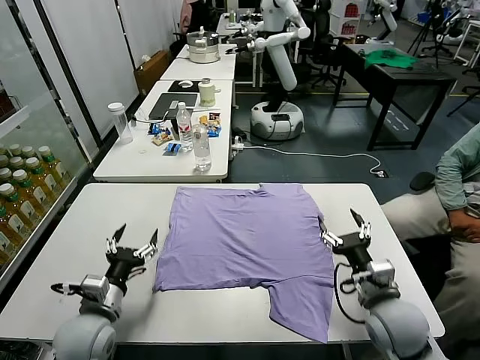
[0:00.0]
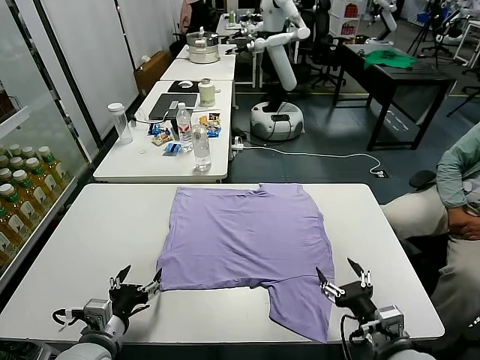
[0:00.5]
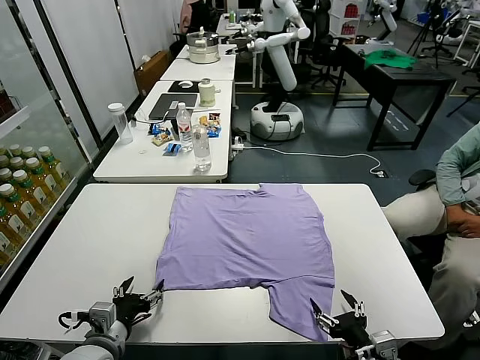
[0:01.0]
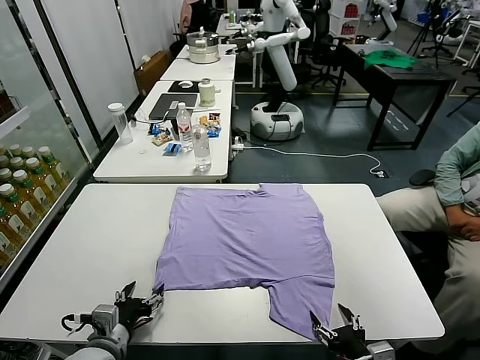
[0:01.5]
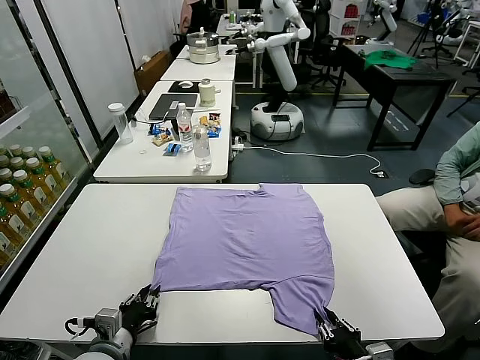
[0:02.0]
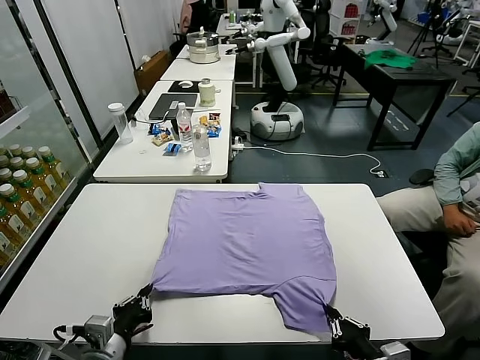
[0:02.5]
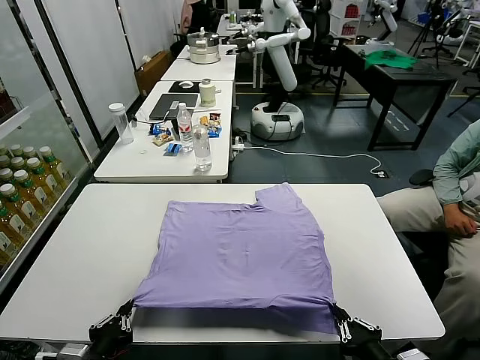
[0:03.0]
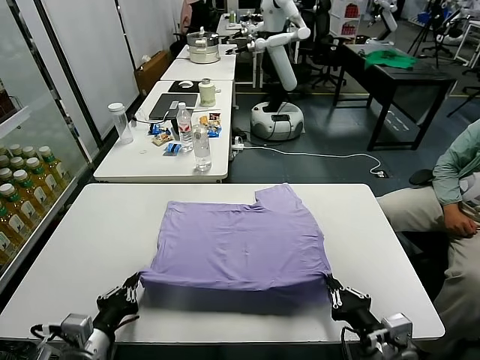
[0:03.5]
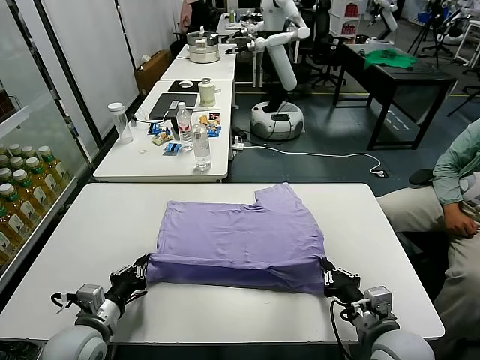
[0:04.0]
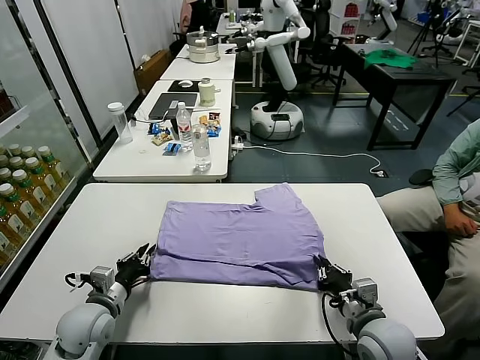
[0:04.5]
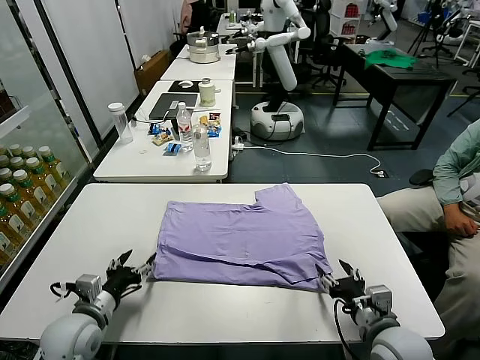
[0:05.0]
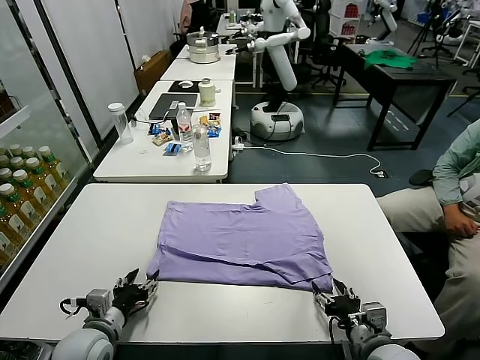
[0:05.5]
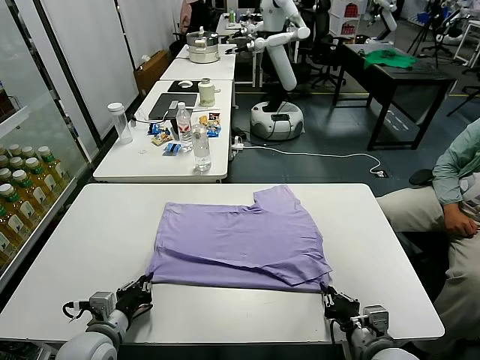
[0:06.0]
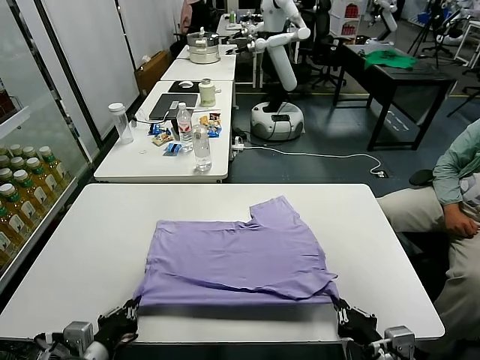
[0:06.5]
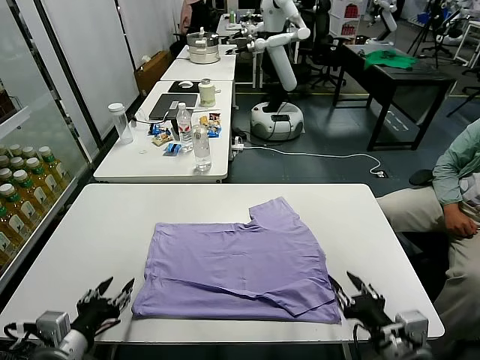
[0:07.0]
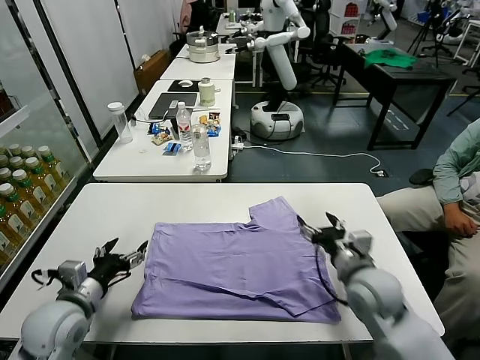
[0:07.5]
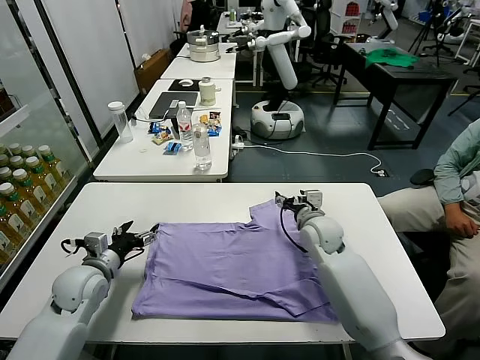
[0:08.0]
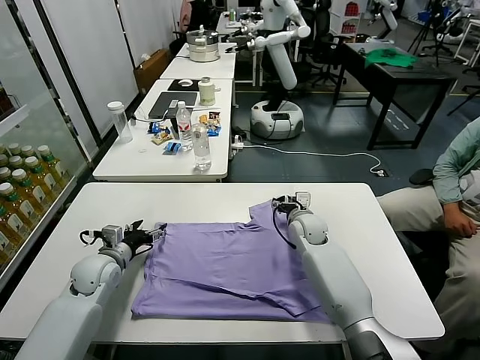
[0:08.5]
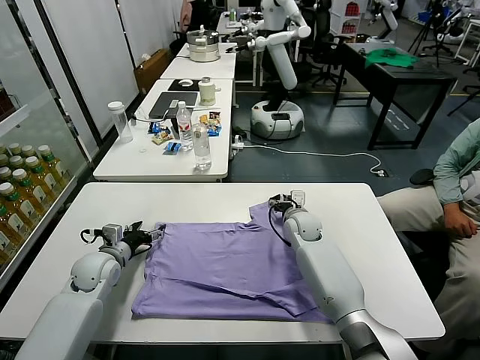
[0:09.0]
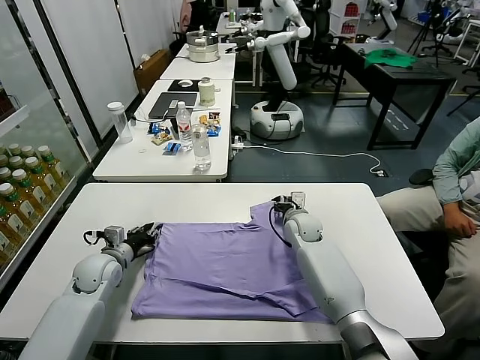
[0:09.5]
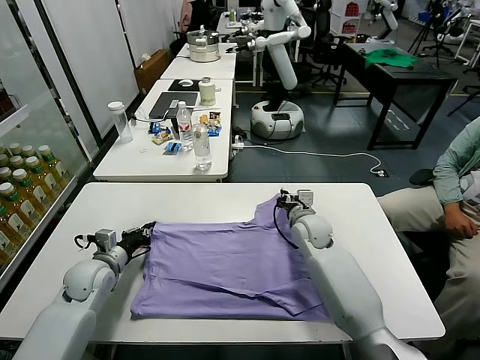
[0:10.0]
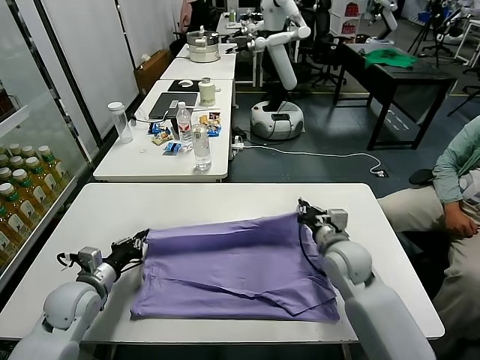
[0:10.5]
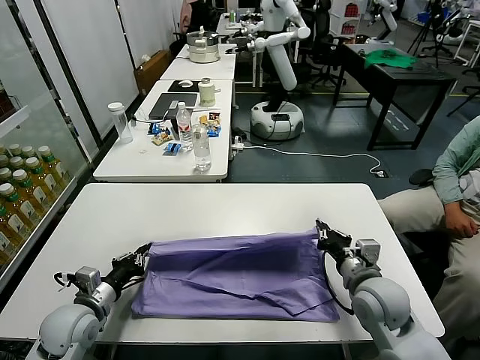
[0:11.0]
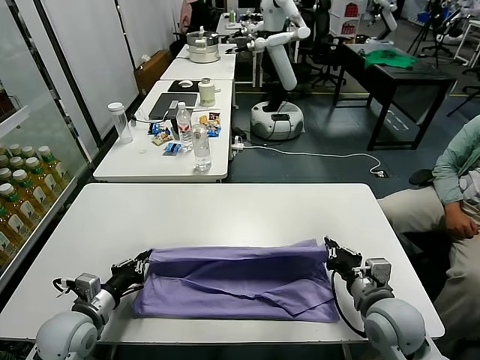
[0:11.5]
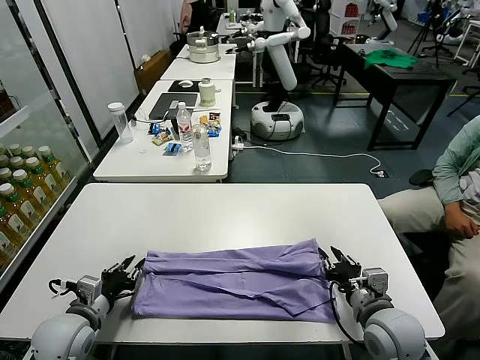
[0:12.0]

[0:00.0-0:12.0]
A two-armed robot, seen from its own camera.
Task of the whole recording: fold and organize the clothes.
Step, 0:00.0 to 0:02.0: use both grippers simultaneously to clamp the lower edge of the clothing fabric.
Step, 0:02.5 to 0:04.5: use both grippers to drag the lower edge of the fabric forward and fold it over the upper edge.
Step, 0:05.0 to 0:07.0: Drag the clothes downward with both gripper.
Step, 0:07.5 to 0:09.5: use both grippers simultaneously to clamp the upper edge of the clothing fabric.
0:02.0 to 0:04.0: The right gripper travels forward by roughly 10 cm. The left gripper shifts by some 5 cm.
0:04.0 to 0:06.0: The left gripper opens, then closes again. The right gripper opens, then closes again.
0:06.0 to 0:08.0: The right gripper moves forward, roughly 30 cm, and opens up, while the left gripper heads forward and to the left, covering about 15 cm, and opens its fingers.
0:08.0 to 0:10.0: The right gripper closes. The left gripper closes its fingers.
0:10.0 to 0:12.0: The left gripper heads backward, covering roughly 15 cm; the right gripper goes some 25 cm backward, and opens up.

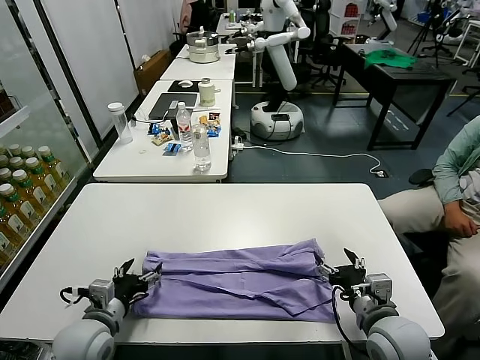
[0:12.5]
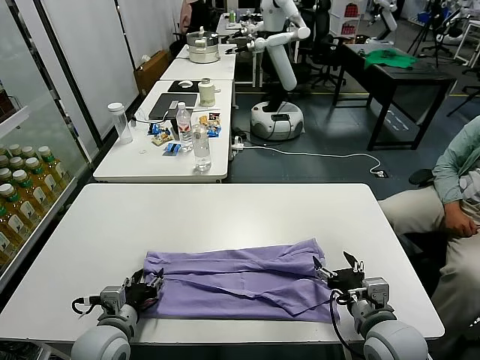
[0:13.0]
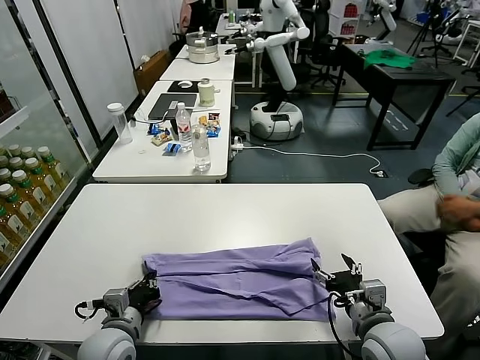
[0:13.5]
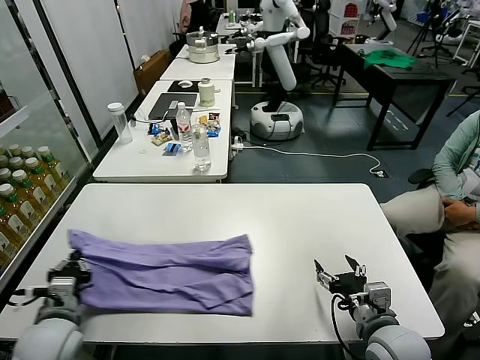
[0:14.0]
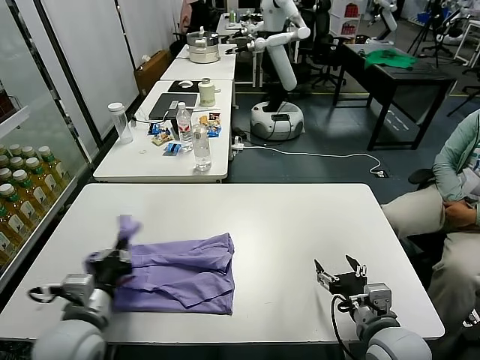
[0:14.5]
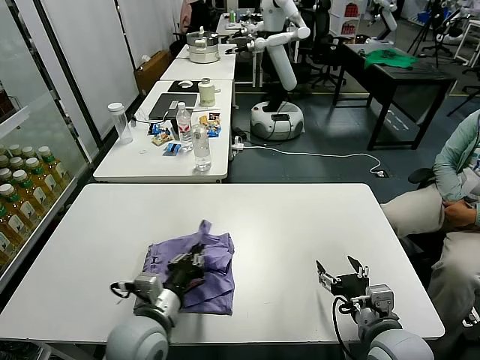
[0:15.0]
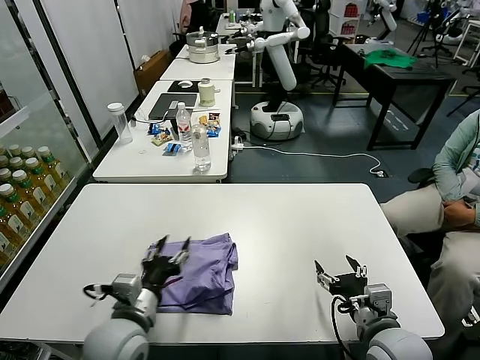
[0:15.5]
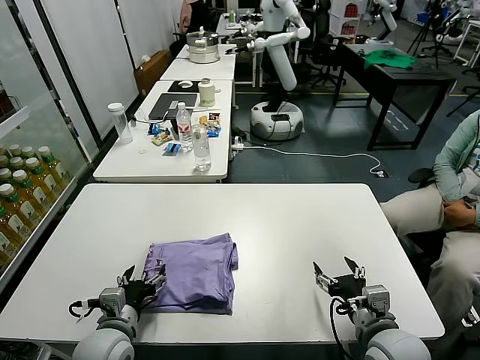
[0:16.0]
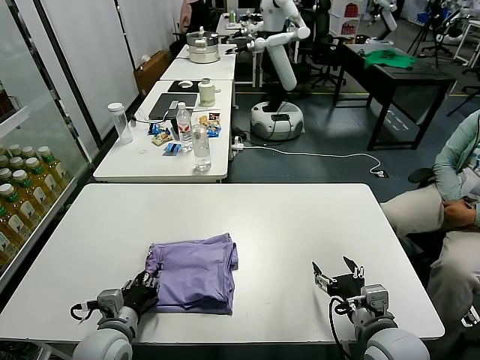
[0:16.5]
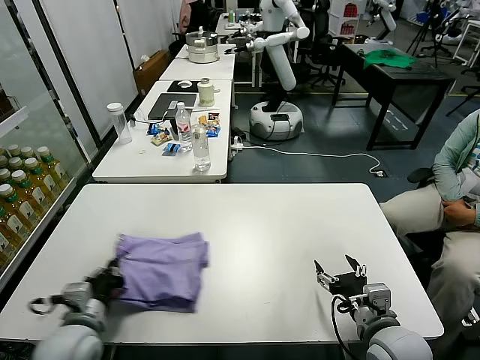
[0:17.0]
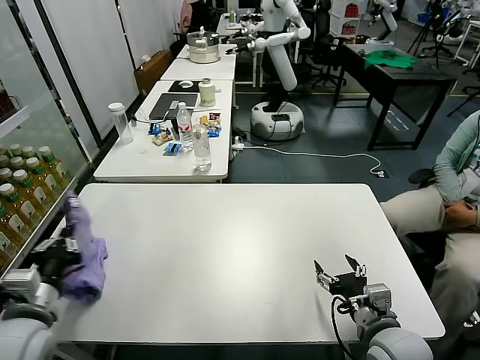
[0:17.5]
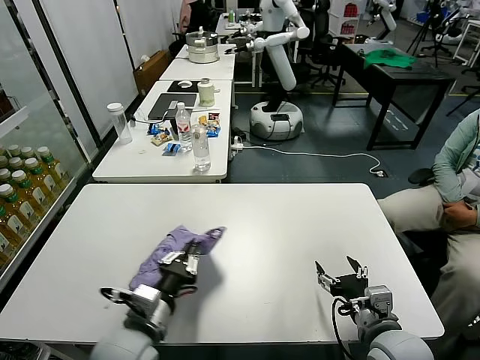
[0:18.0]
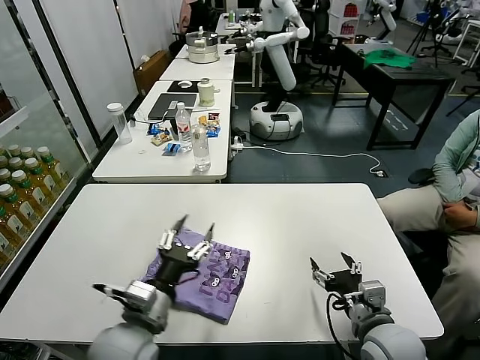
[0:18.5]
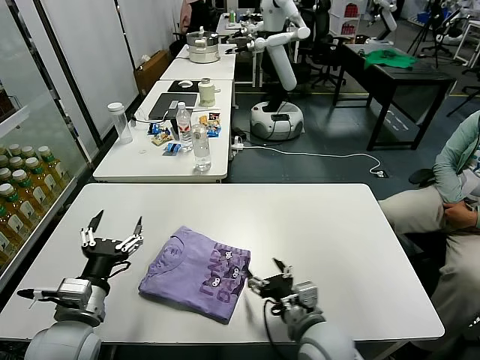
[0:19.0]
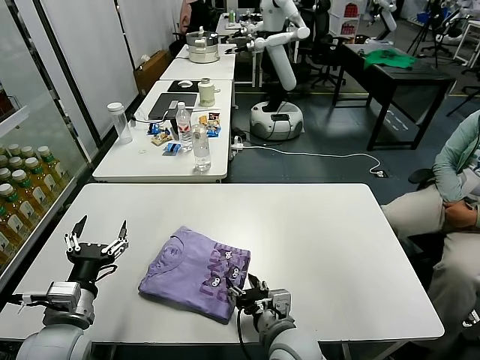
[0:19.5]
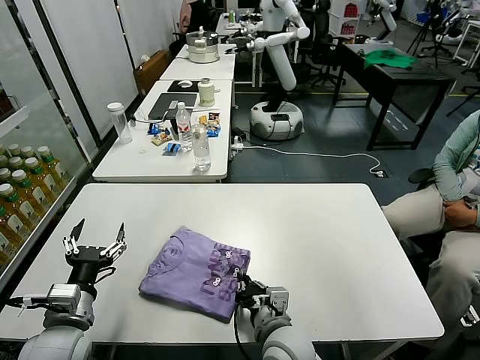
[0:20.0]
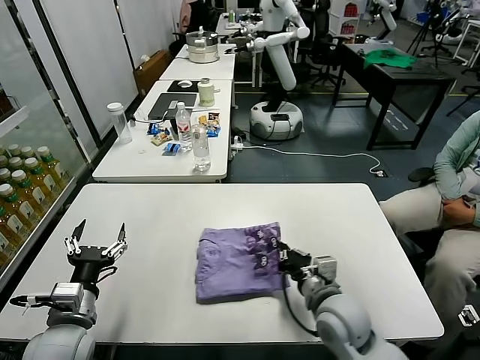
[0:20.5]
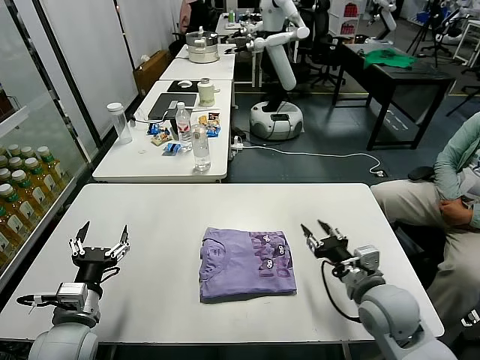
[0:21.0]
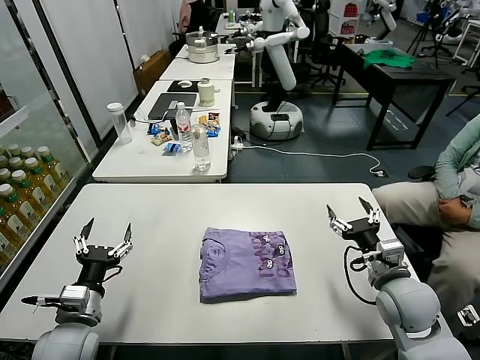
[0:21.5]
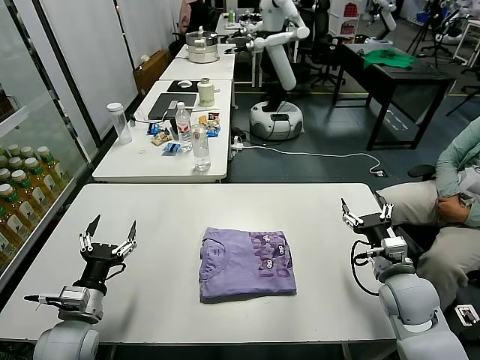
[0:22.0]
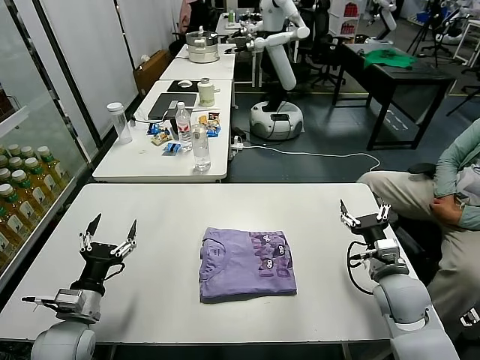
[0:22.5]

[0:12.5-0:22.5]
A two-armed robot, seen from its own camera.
Task of the whole recording: fold and organize the clothes.
Step, 0:12.5 to 0:13.5: use the left gripper to clamp the left edge of the fabric.
Step, 0:14.0 to 0:15.0: use the left gripper to drag the left edge of the fabric to the left and folds it over the right edge.
Step, 0:15.5 to 0:18.5: Flip the folded clothes over with left gripper.
Step, 0:19.0 to 0:20.5: Drag the clothes to the center of the table.
0:12.5 to 0:14.5: The left gripper moves left and right over roughly 10 cm, changing direction 2 times, and closes its fingers.
0:14.5 to 0:16.5: The left gripper is displaced downward by about 10 cm, goes to the right and returns, roughly 10 cm each way, and opens.
0:16.5 to 0:18.5: The left gripper travels upward and to the right by some 15 cm, and closes and opens again.
0:18.5 to 0:20.5: The left gripper shifts roughly 15 cm to the left. Meanwhile the right gripper shifts some 10 cm to the left and forward, and closes up.
0:20.5 to 0:22.5: The right gripper heads to the right, covering roughly 15 cm, and opens up. Meanwhile the left gripper travels downward by about 5 cm.
